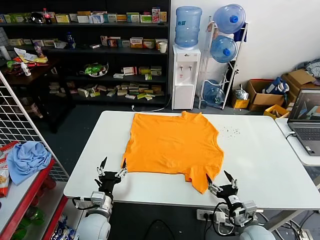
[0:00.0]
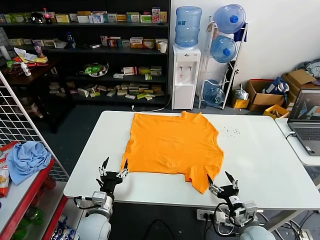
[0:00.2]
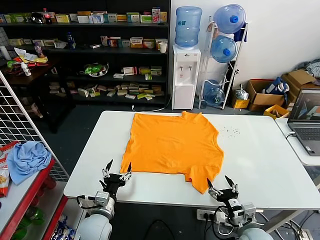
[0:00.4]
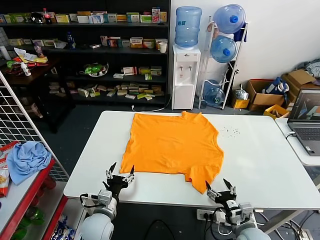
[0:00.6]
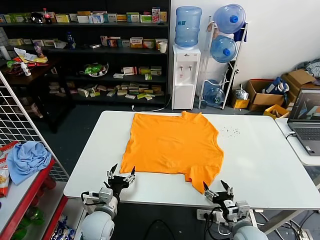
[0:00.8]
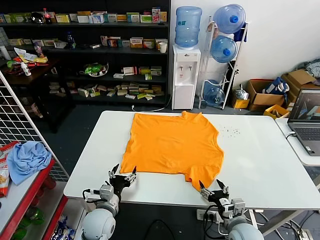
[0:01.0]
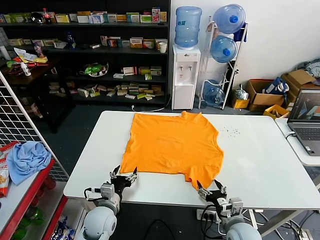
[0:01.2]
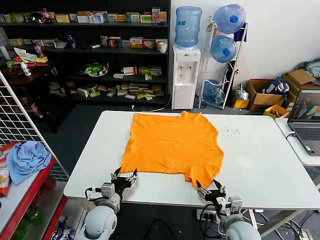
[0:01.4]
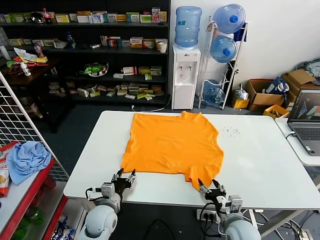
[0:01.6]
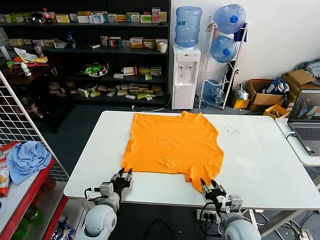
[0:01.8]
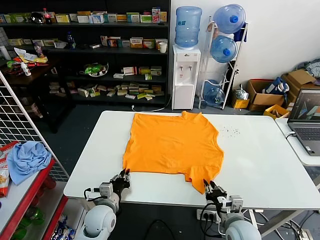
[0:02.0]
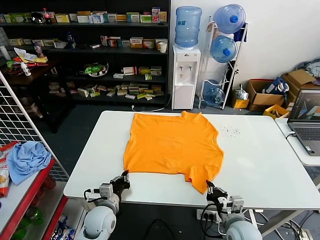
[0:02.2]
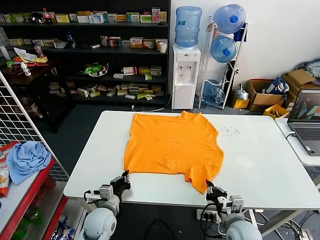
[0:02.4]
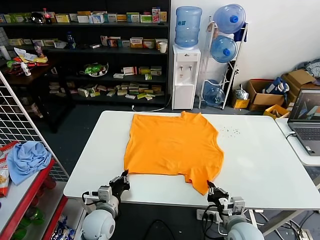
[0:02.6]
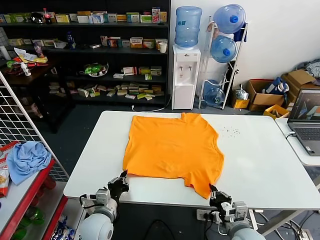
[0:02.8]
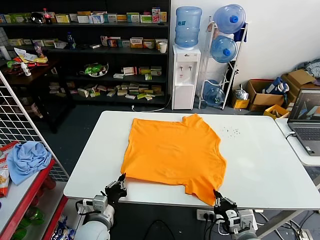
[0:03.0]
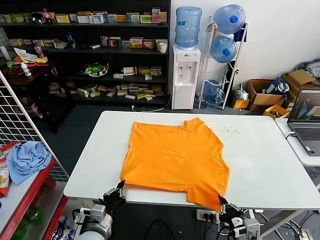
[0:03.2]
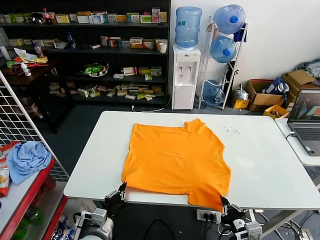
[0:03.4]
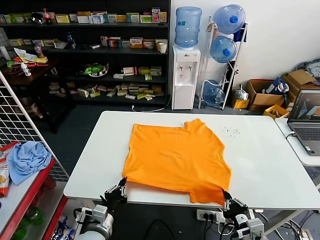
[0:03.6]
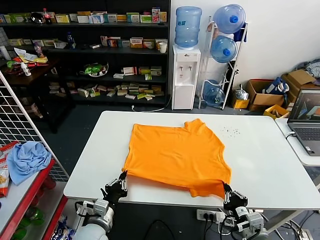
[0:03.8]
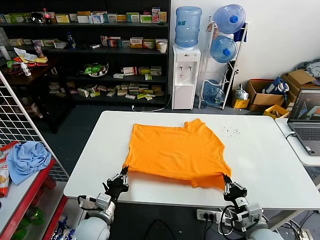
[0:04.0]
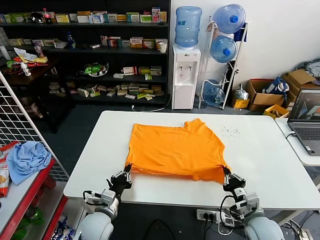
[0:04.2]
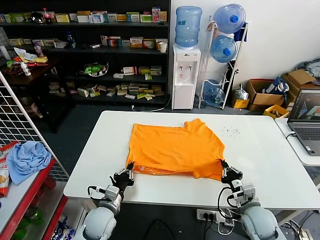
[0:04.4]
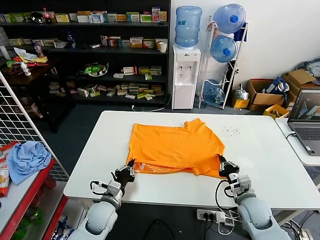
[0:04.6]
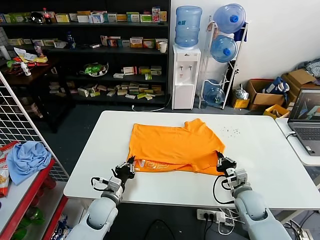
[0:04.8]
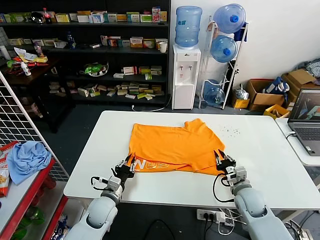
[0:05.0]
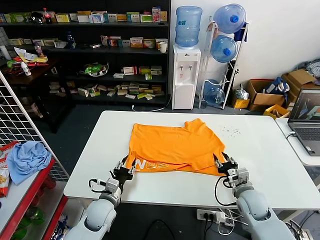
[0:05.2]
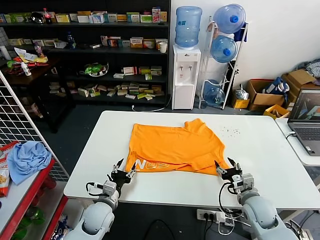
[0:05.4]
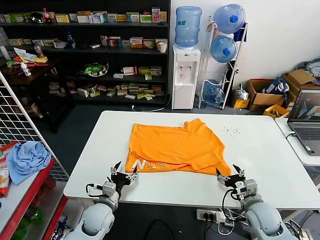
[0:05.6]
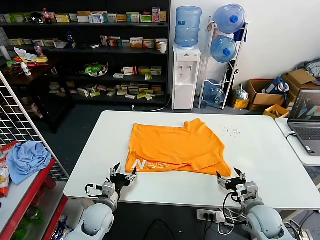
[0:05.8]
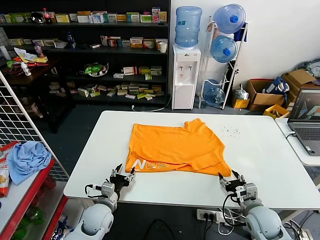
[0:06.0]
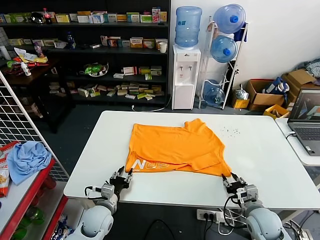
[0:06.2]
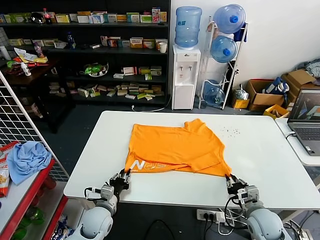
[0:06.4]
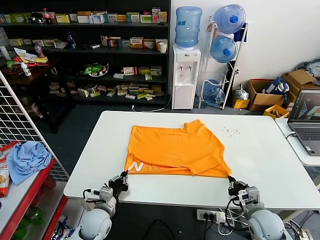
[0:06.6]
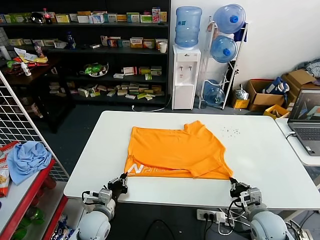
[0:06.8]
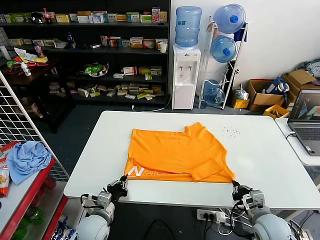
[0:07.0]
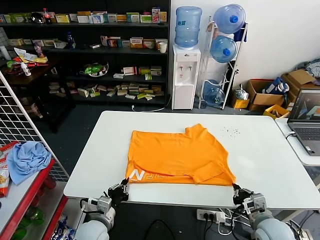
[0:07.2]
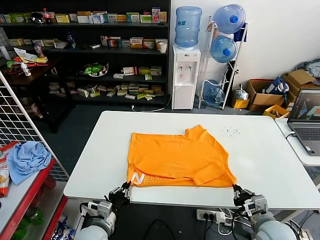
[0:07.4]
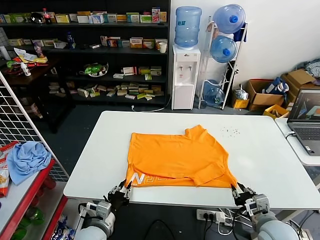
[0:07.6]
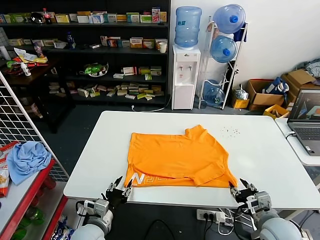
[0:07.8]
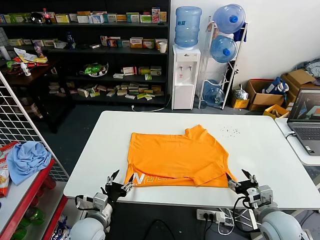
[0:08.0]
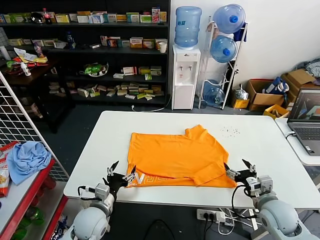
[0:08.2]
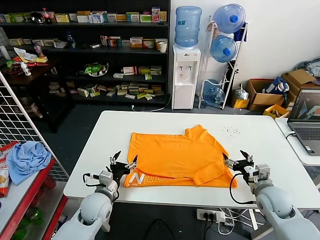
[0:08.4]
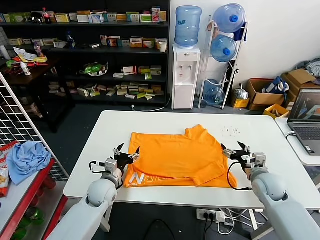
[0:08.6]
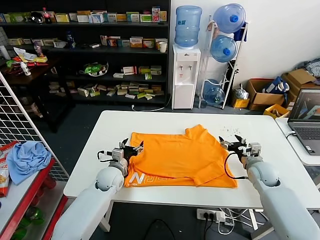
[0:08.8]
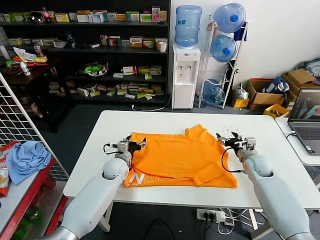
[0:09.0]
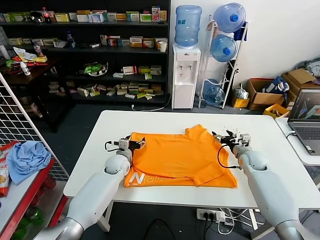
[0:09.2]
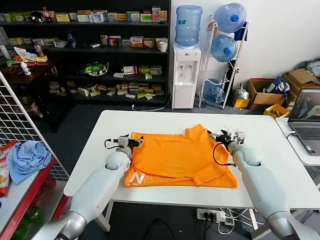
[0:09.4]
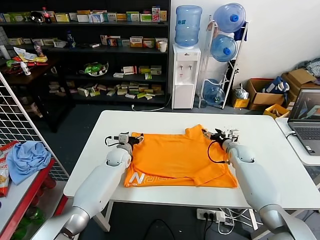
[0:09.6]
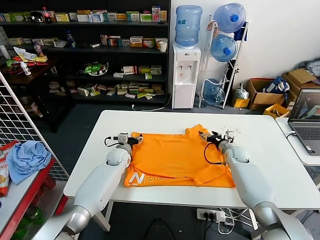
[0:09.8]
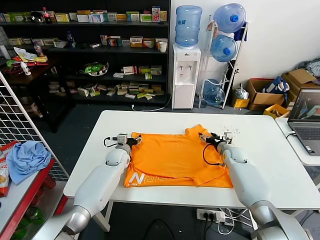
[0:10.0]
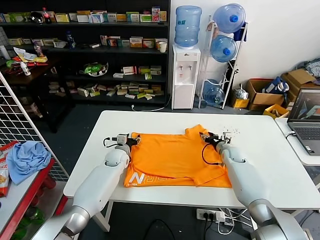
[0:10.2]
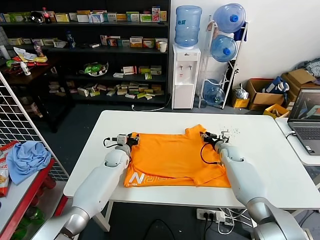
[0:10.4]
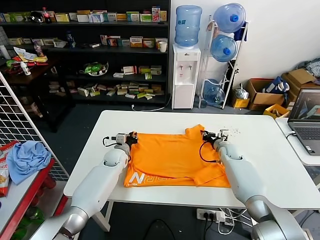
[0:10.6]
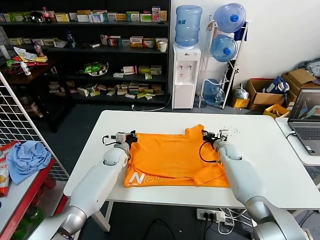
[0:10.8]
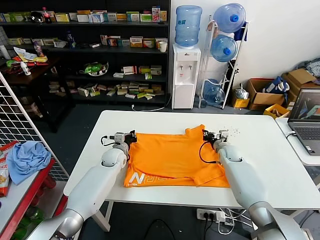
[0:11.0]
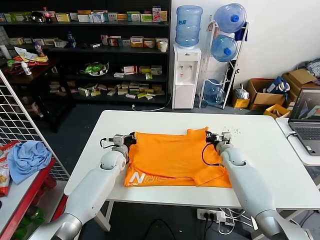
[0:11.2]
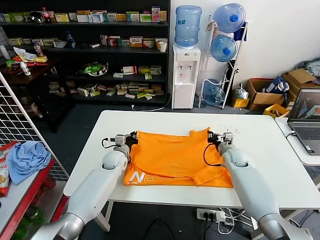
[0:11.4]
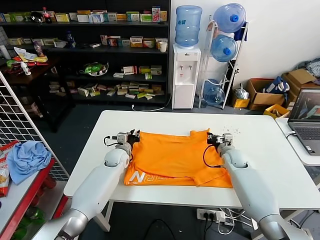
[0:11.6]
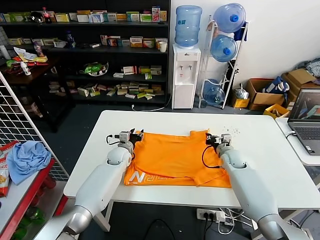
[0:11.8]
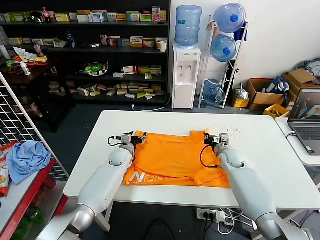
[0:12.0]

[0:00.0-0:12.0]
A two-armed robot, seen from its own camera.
Task of the whole recording: fold and organize the clothes.
Step, 0:00.0 to 0:02.8: use both grippers simultaneously to clamp the lower edge of the clothing fabric.
Step, 0:03.0 to 0:05.2: use both grippers to drag the lower edge of the fabric forward and fold it over the upper edge.
Step, 0:05.4 to 0:08.2: Drag the clothes downward with both gripper.
0:01.6 to 0:03.0: Both grippers move backward, some 5 cm. The left gripper closes its fingers; the right gripper closes.
0:03.0 to 0:04.4: The left gripper changes place by roughly 5 cm. The right gripper is displaced forward by roughly 10 cm.
0:04.4 to 0:06.0: The right gripper opens up; the left gripper opens.
0:06.0 to 0:07.6: The right gripper moves backward and upward, about 10 cm, and closes, then opens again, while the left gripper goes about 10 cm backward, and closes its fingers.
0:07.6 to 0:09.0: The two grippers go about 25 cm forward. The right gripper opens its fingers, while the left gripper opens.
0:09.0 to 0:10.4: The left gripper shifts some 5 cm forward, and closes. Meanwhile the right gripper travels forward and to the left by roughly 10 cm, and closes its fingers.
0:10.4 to 0:12.0: The left gripper closes and opens again. Meanwhile the right gripper closes.

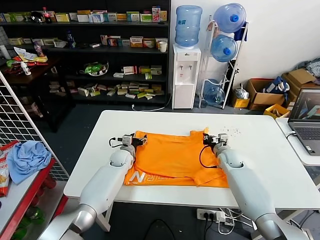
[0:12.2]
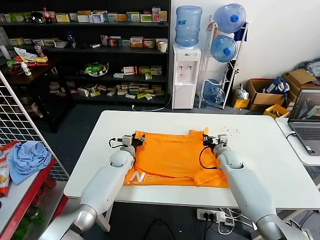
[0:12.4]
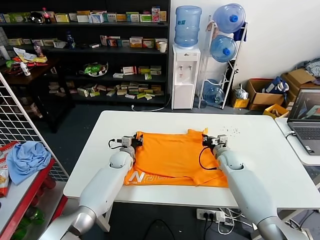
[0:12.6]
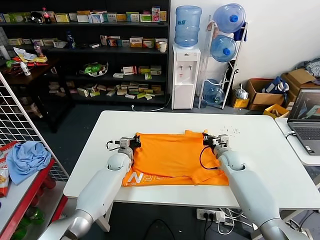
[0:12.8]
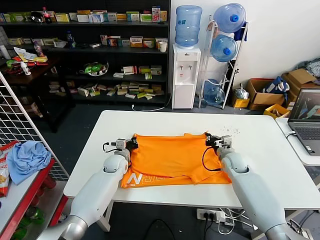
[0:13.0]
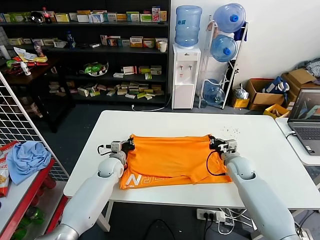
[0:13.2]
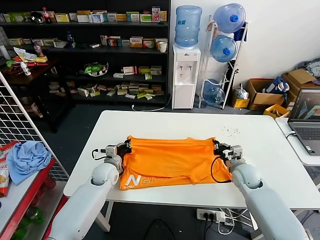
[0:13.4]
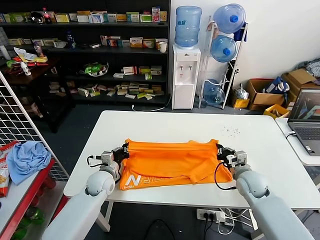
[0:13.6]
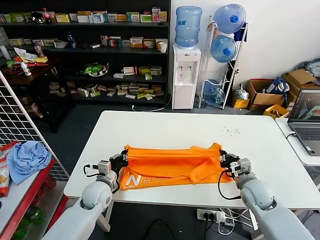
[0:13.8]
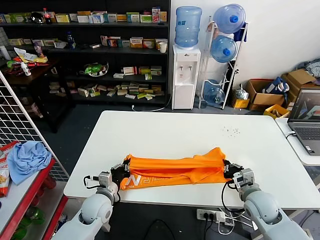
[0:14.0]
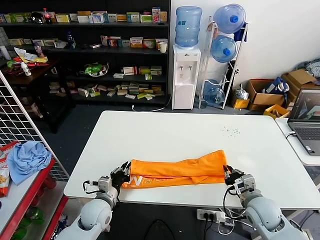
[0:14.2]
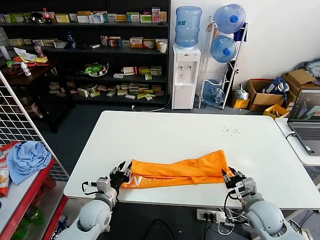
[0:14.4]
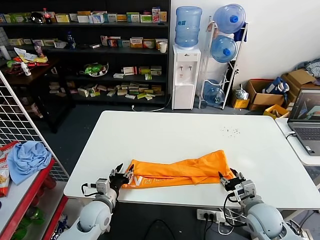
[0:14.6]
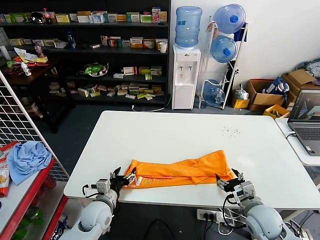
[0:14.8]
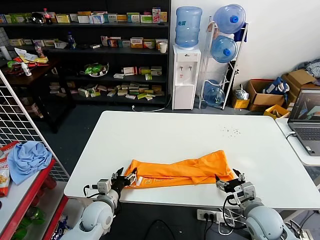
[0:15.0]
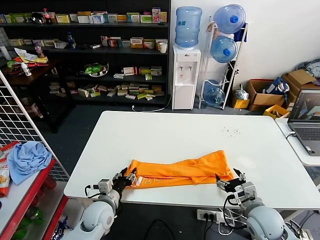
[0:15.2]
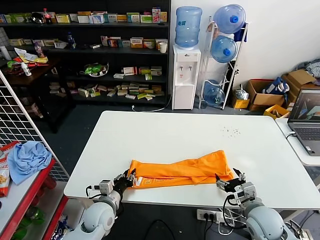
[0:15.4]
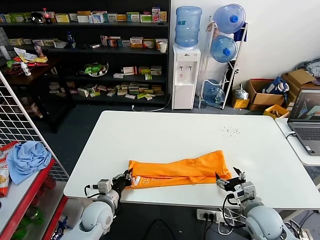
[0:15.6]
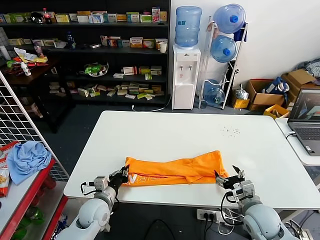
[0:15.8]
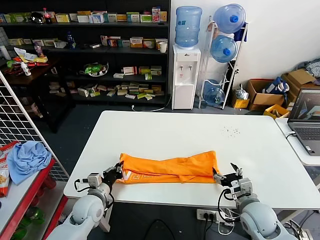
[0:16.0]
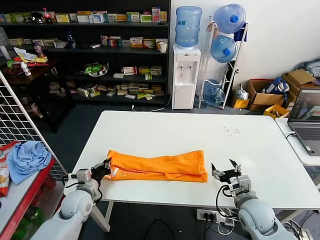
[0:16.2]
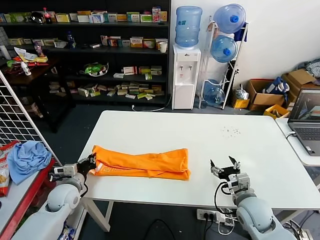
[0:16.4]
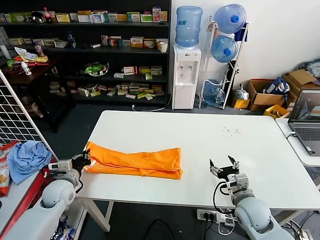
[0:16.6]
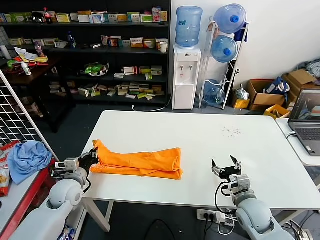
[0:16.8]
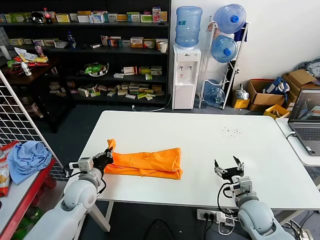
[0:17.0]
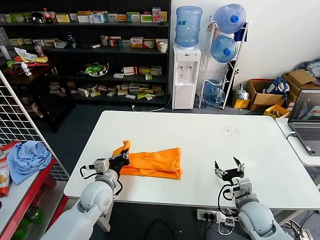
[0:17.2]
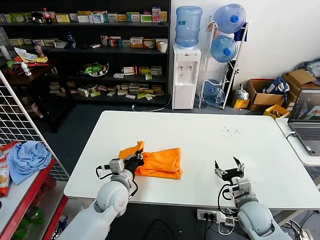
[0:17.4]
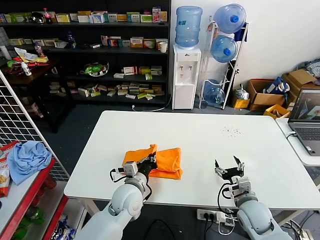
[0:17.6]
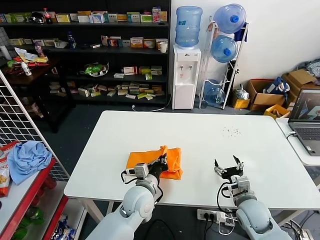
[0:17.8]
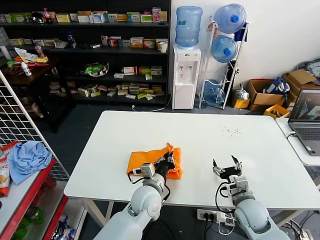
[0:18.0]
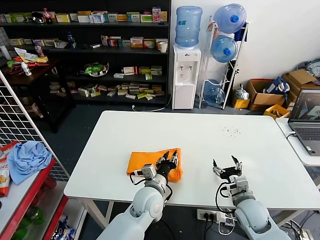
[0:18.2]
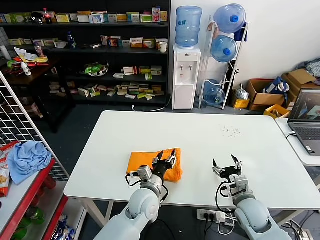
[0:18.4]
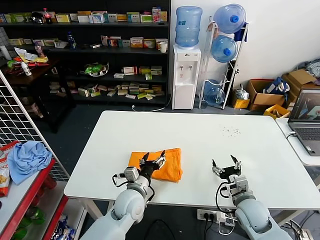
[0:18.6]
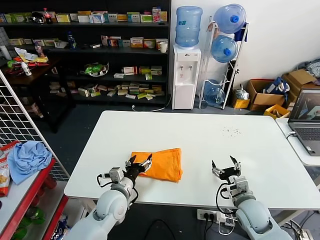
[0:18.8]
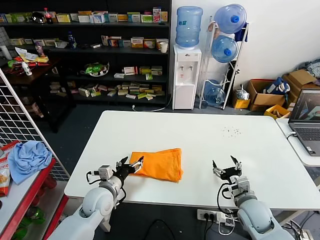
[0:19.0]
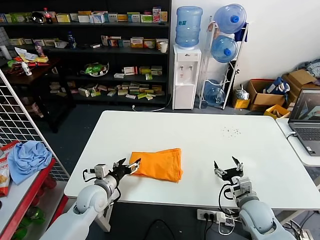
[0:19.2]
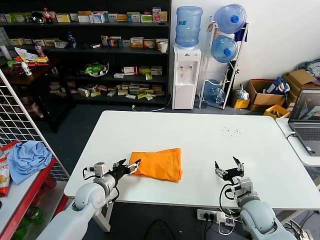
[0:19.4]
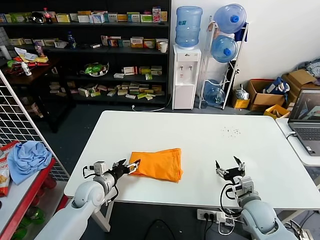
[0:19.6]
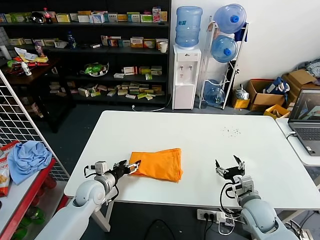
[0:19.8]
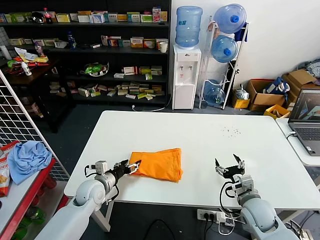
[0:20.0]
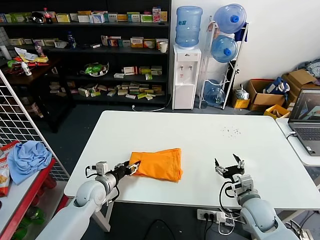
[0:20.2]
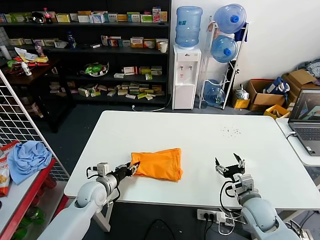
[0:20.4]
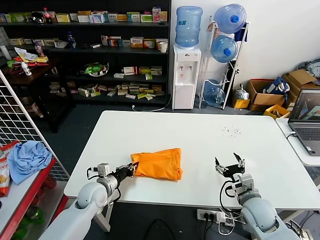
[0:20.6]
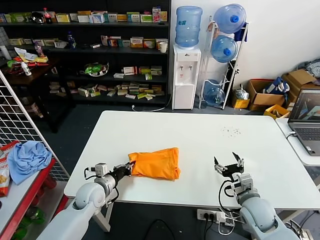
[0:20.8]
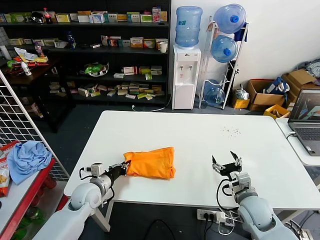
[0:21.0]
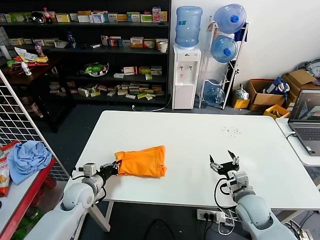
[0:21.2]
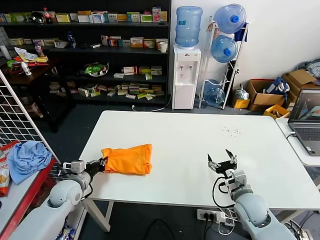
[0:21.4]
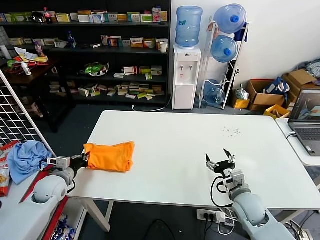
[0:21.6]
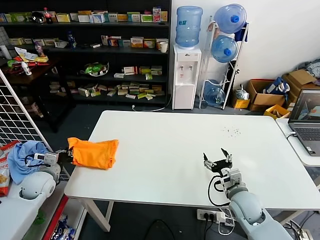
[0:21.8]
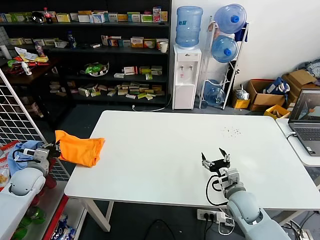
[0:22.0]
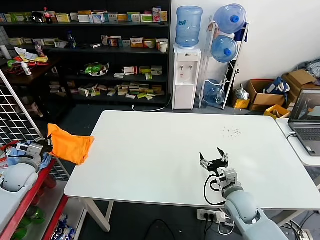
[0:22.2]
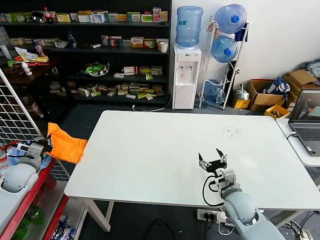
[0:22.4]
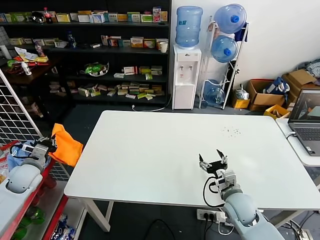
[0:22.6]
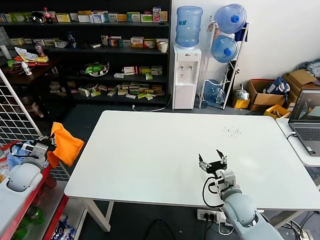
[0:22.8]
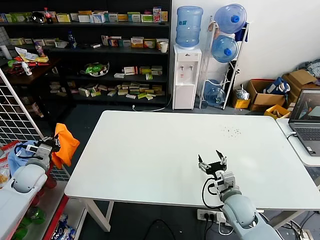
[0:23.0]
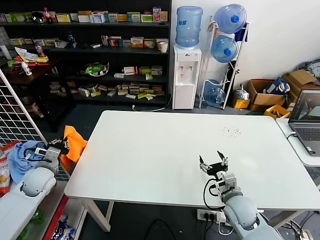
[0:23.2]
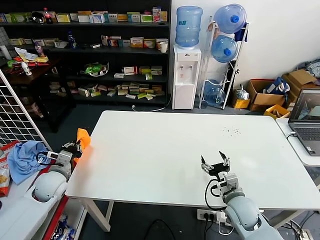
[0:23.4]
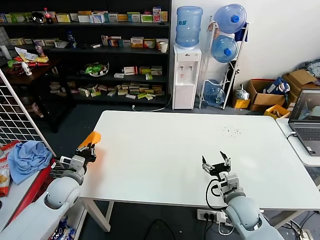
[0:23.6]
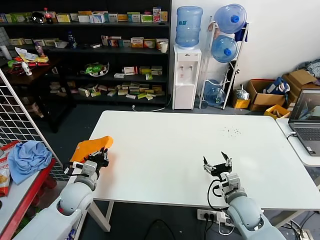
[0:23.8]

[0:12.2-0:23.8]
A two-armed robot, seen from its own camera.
Task of the whole recording: fold and organize the clothes.
Step, 0:13.0 to 0:14.8: use both grippers to drag the upper edge of the fabric backward and fold it over the lower edge.
Step, 0:15.2 to 0:15.6: use the left gripper to clamp the left edge of the fabric.
Step, 0:16.0 to 0:18.4: use the left gripper to drag the left edge of the fabric to the left and folds it over the right edge.
0:12.2 to 0:13.6: The right gripper shifts approximately 15 cm backward. The left gripper goes some 15 cm backward and to the left, and closes its fingers.
0:13.6 to 0:15.0: The two grippers go some 10 cm backward. The right gripper opens its fingers, while the left gripper opens its fingers.
0:15.0 to 0:16.6: The left gripper travels to the left by roughly 15 cm, and closes up.
0:16.6 to 0:18.0: The left gripper travels to the right by approximately 30 cm.
0:18.0 to 0:19.4: The left gripper travels to the left by about 20 cm, and opens up.
0:19.4 to 0:21.0: The left gripper closes.
0:21.0 to 0:22.4: The left gripper goes approximately 20 cm to the left.
0:22.4 to 0:23.8: The left gripper shifts some 20 cm to the right.
